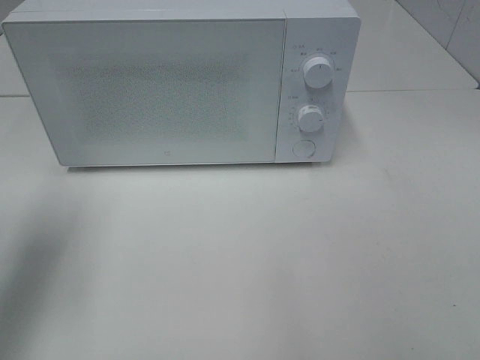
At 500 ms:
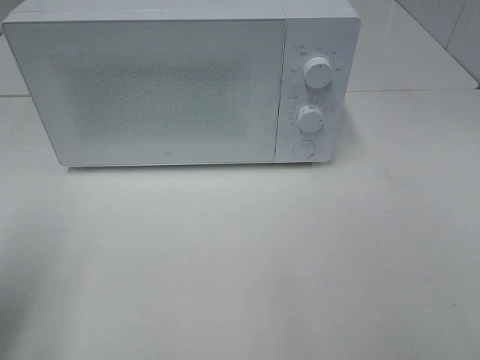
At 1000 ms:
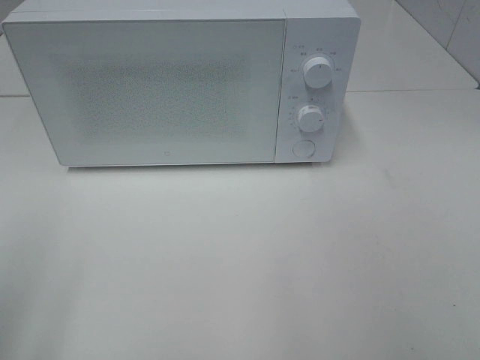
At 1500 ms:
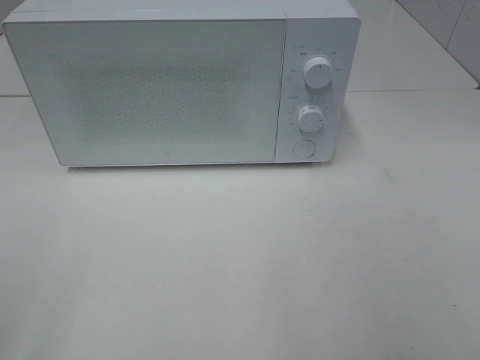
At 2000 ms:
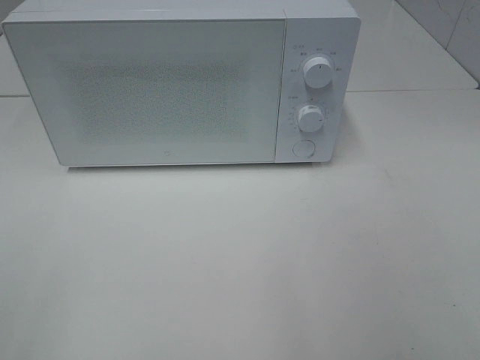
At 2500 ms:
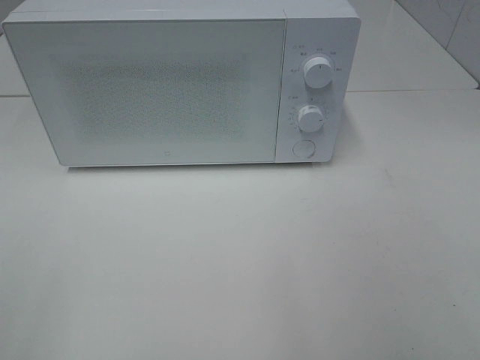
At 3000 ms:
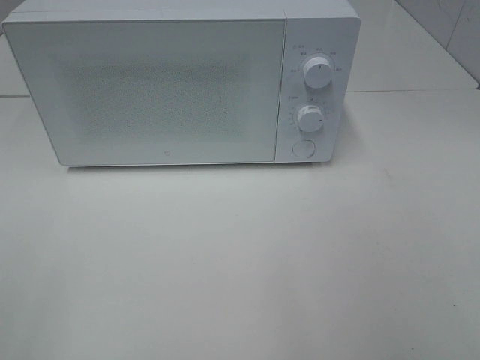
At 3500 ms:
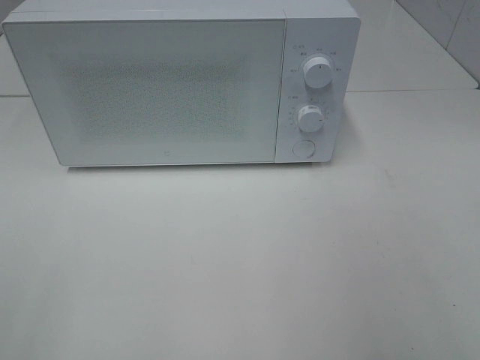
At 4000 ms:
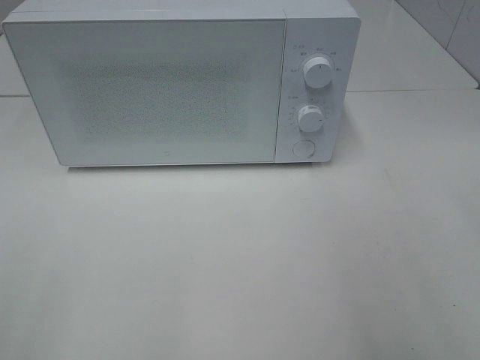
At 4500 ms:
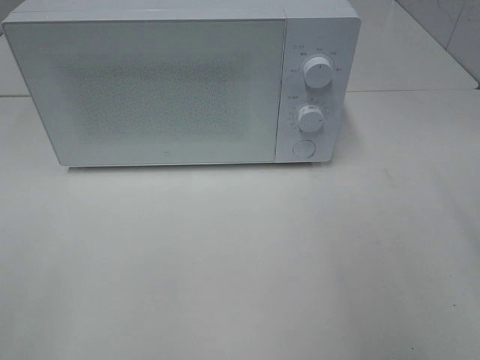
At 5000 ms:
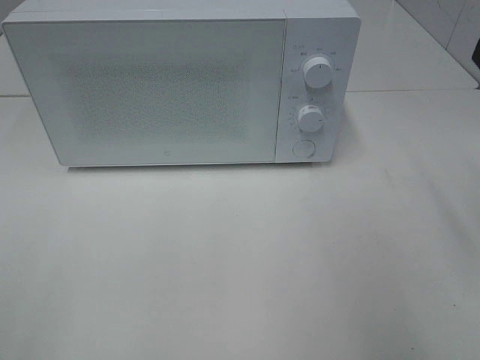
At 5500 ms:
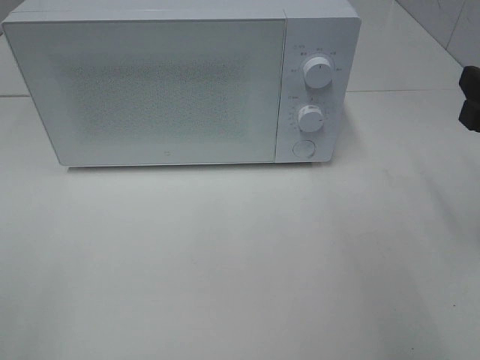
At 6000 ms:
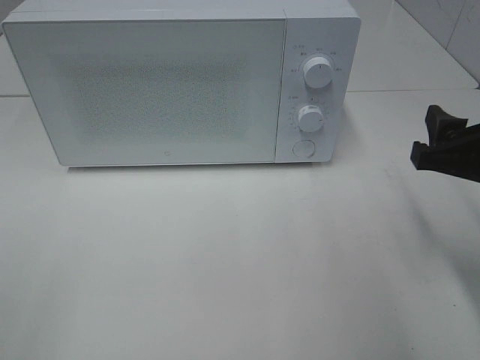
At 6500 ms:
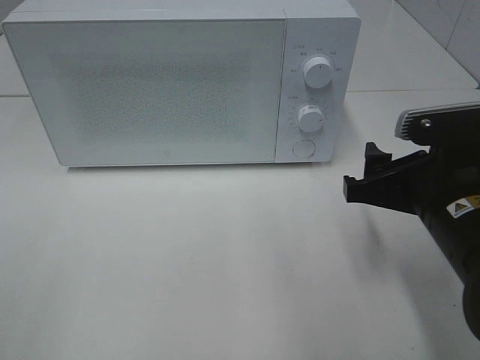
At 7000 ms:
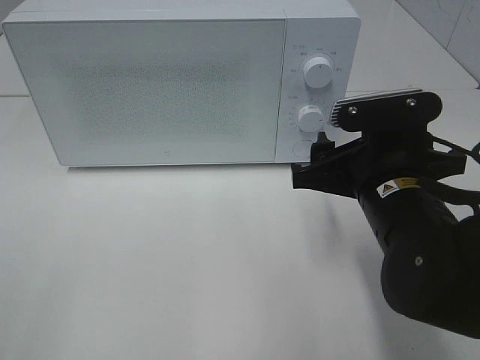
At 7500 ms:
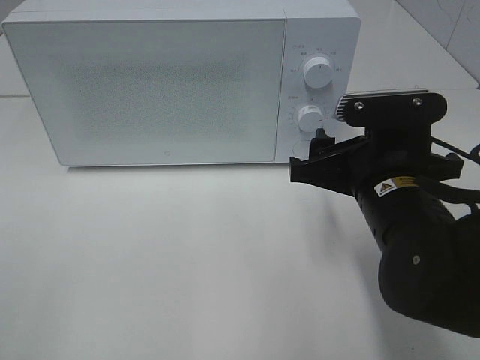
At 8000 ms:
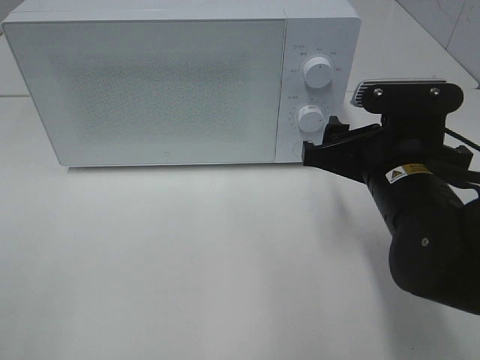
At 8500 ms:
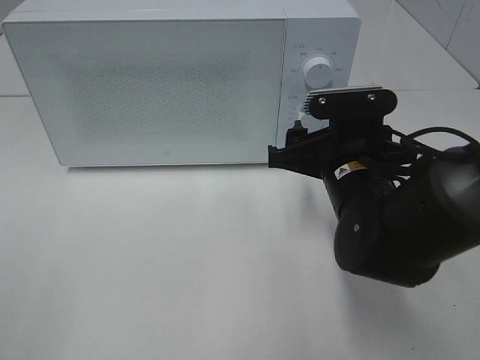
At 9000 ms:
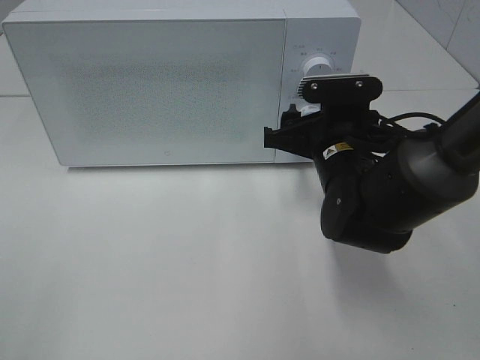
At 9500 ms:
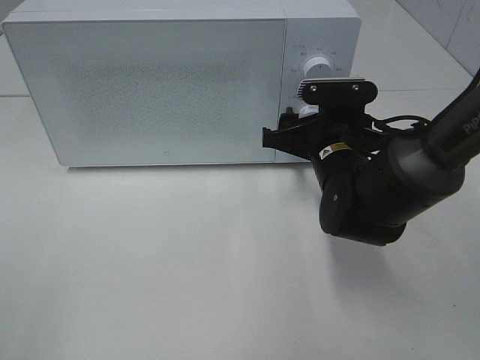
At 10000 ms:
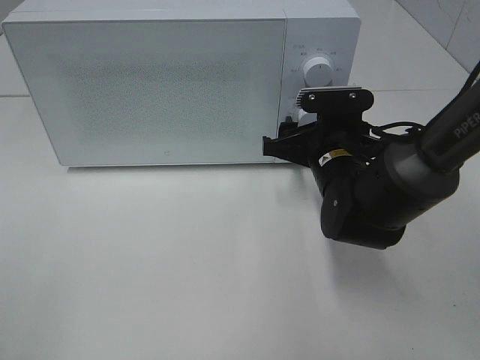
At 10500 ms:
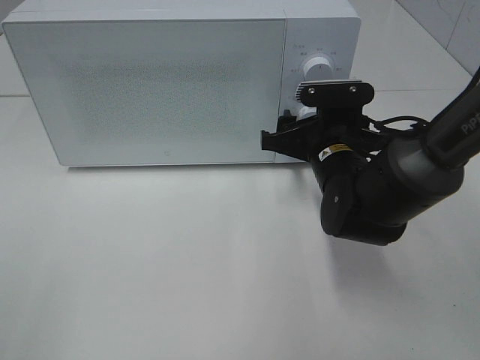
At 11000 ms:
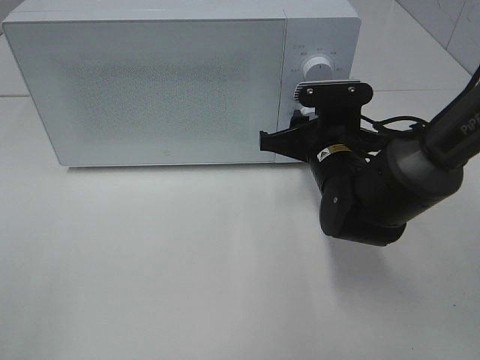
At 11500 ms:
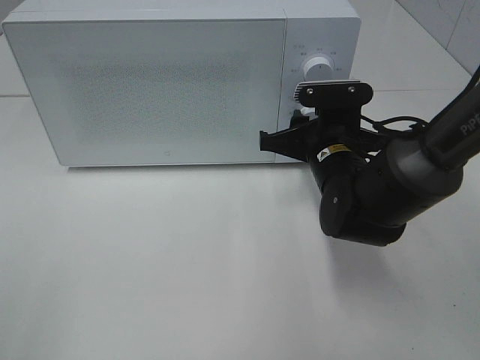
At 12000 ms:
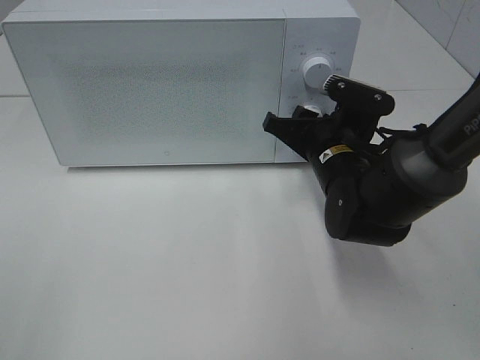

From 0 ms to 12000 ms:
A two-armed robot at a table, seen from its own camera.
Task of the whole recording: Heat the burger.
From 0 ms to 2000 ms: The left gripper shifts about 25 cm backward.
From 4000 ms to 6000 ms: The right gripper shifts about 15 cm downward, forward and to the left.
From 6000 ms to 8000 ms: The right gripper heads to the left, covering roughly 10 cm.
From 8000 ms to 10000 ms: The right gripper heads forward and downward, covering some 10 cm.
From 10000 ms to 12000 ms: The right gripper closes.

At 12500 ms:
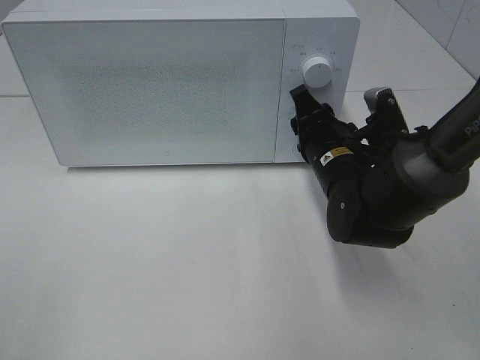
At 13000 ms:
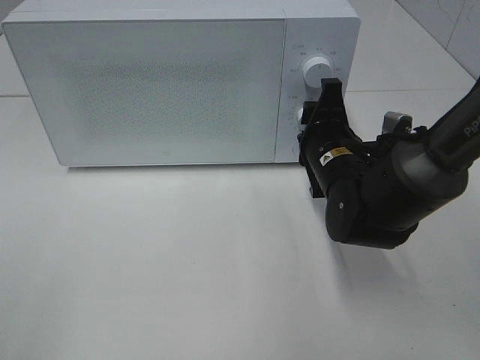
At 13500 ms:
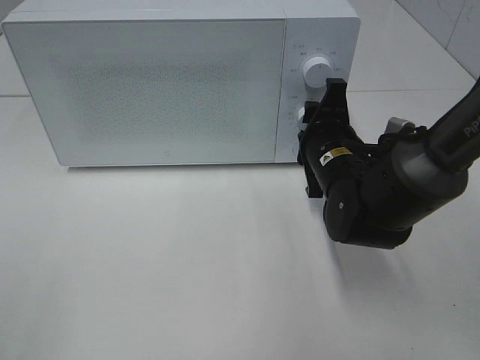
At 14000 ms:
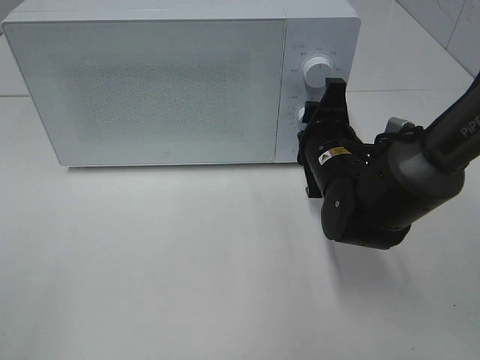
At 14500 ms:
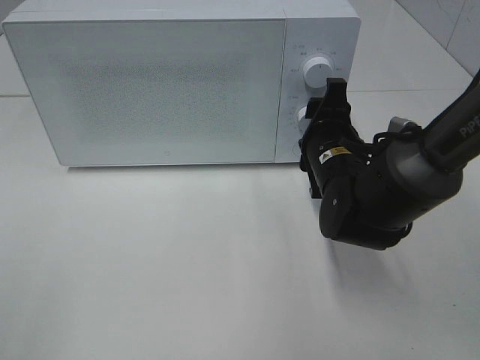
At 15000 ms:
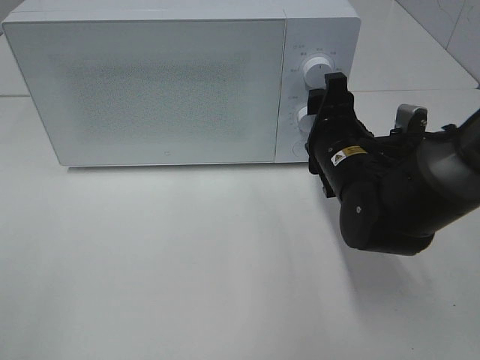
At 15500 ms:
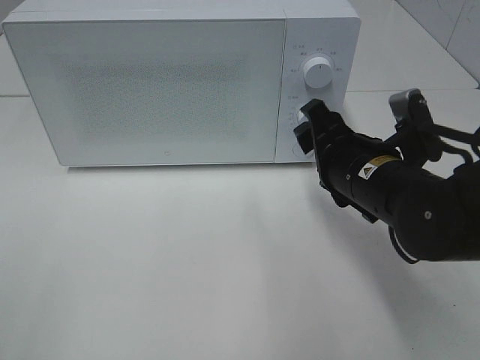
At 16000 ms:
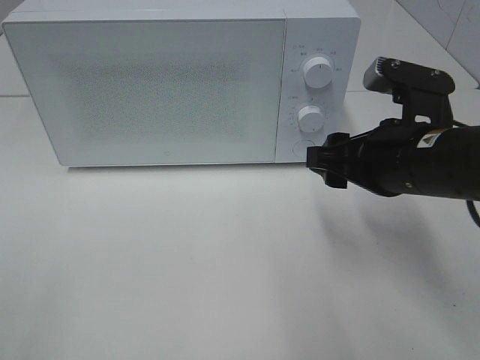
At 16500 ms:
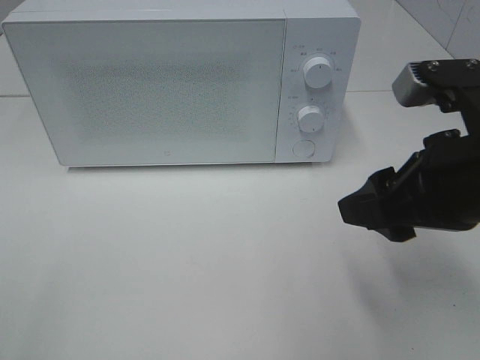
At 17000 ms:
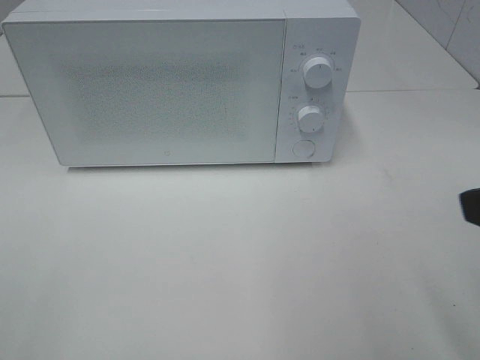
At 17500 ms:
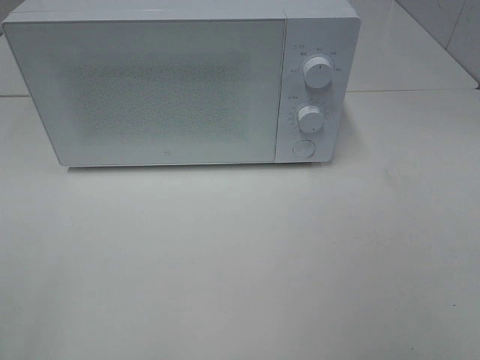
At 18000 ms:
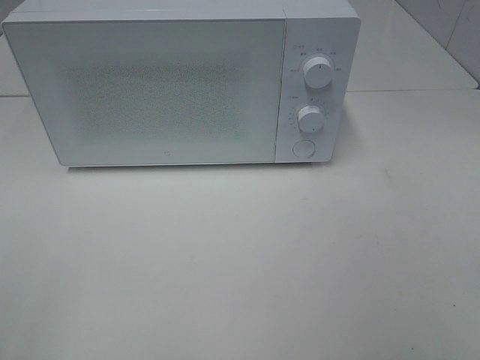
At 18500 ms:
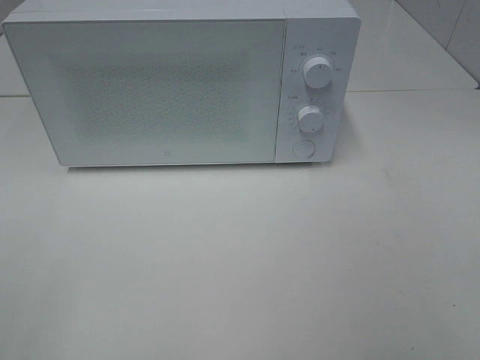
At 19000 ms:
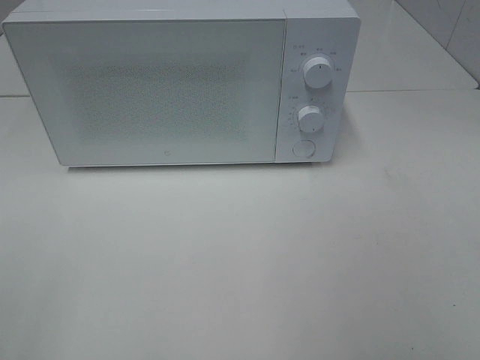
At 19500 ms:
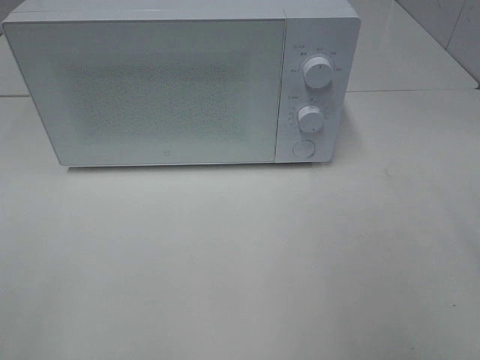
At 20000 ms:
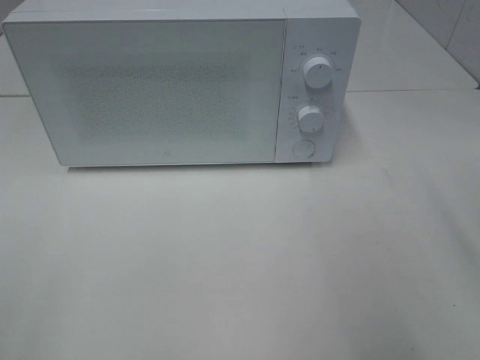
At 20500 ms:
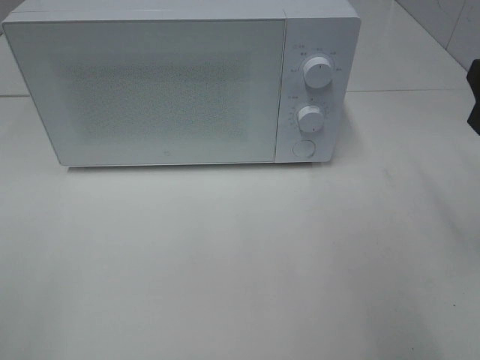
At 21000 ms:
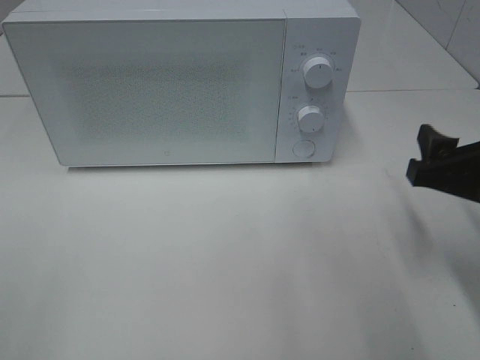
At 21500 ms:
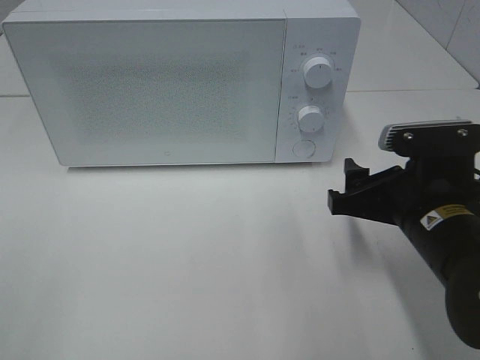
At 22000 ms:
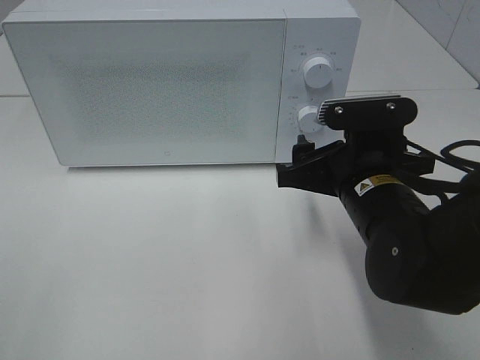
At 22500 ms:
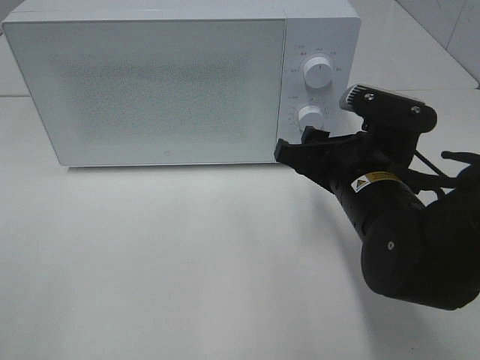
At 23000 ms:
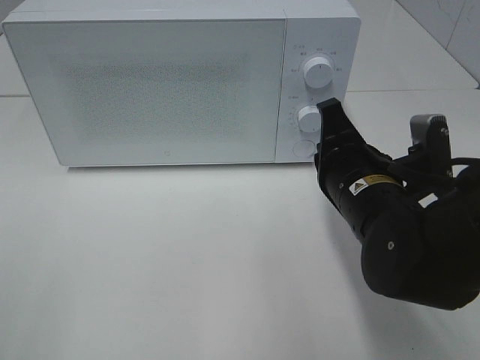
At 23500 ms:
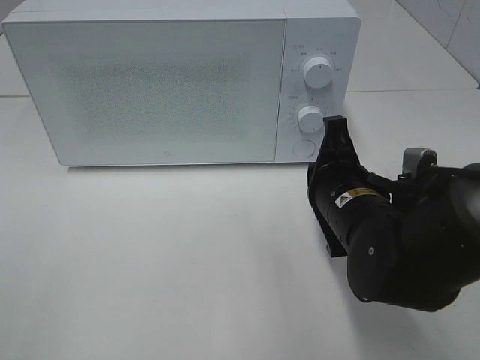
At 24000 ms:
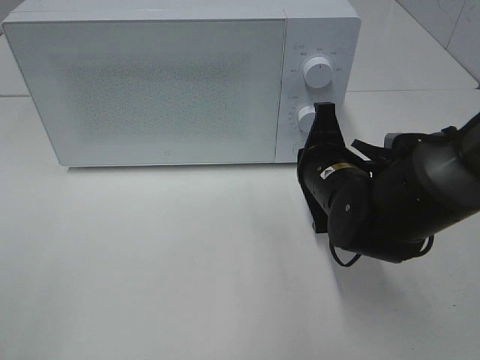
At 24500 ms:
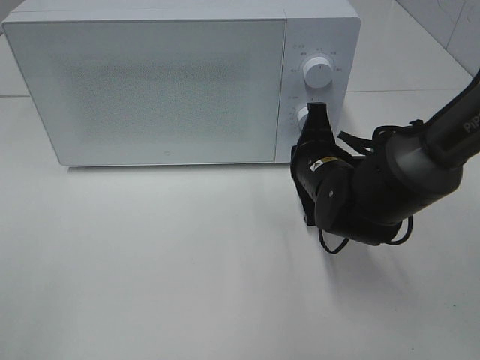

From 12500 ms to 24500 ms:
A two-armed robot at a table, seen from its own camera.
Task of the whole recording: Heat the burger.
From 14500 ms to 16500 ms: The right gripper moves backward, upward and to the right, about 20 cm.
From 16500 ms to 18500 ms: The right gripper moves backward and to the right, approximately 20 cm.
From 20500 ms to 22500 ms: The right gripper travels to the left and downward by approximately 15 cm.
From 22500 ms to 24500 ms: The right gripper moves forward and downward, some 10 cm, and closes its fingers.

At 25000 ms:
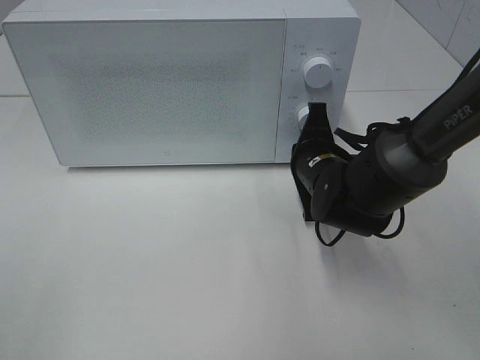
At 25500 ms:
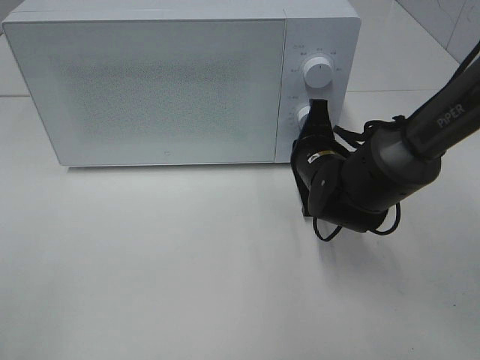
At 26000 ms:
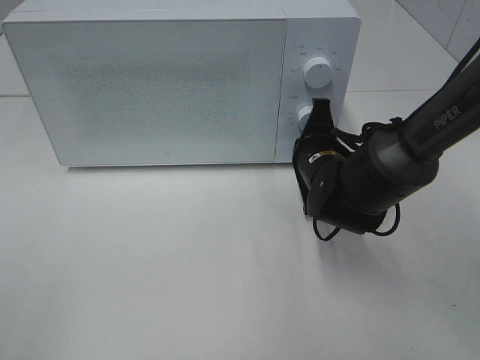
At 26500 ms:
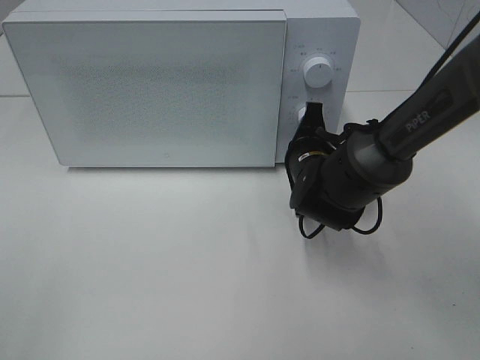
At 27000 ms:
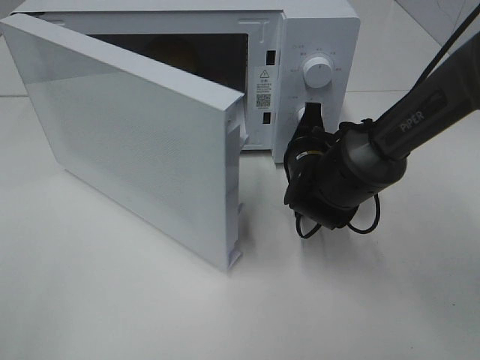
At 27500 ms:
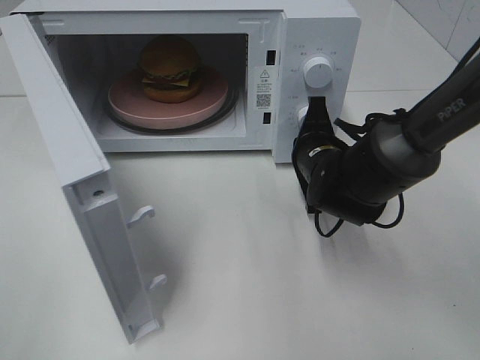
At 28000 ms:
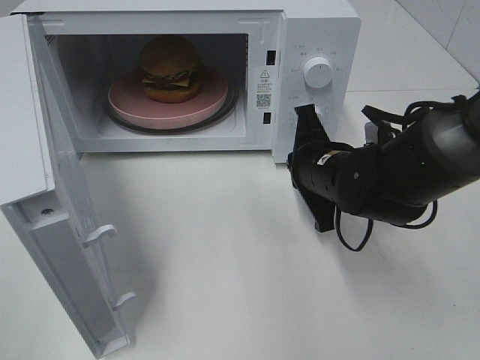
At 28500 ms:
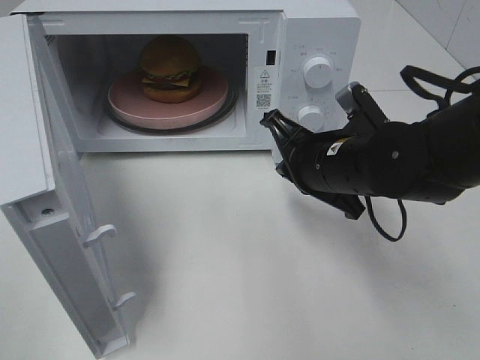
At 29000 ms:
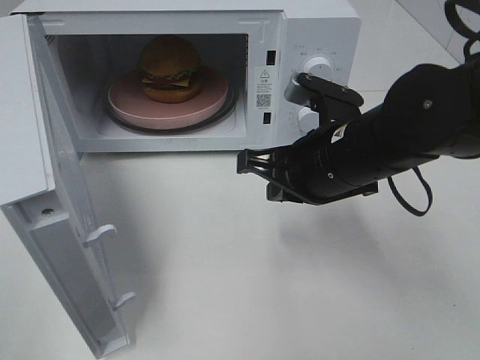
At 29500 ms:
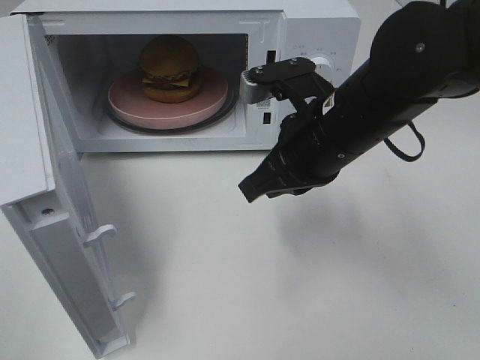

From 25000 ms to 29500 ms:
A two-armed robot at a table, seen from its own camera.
Task of the whole recording: Heat the burger.
Step, from 25000 ms to 27500 ms: Right hand: press the switch.
From 27000 ms to 29500 ms: The right gripper moves upward and backward, approximately 15 cm.
